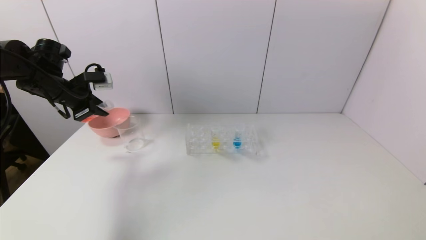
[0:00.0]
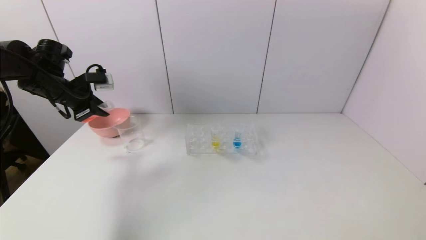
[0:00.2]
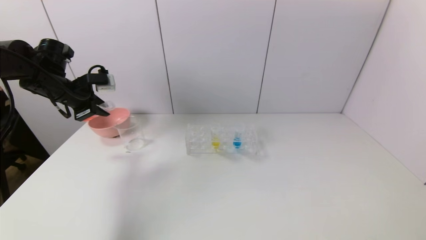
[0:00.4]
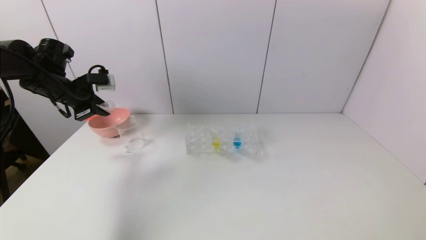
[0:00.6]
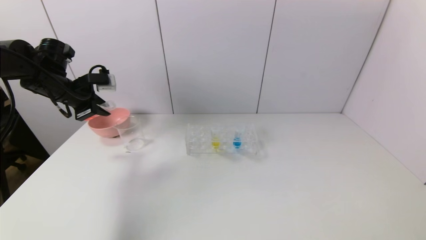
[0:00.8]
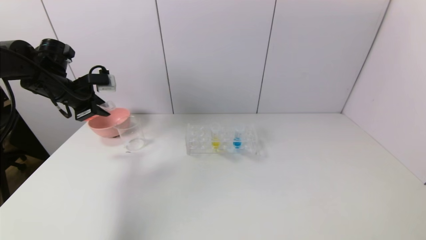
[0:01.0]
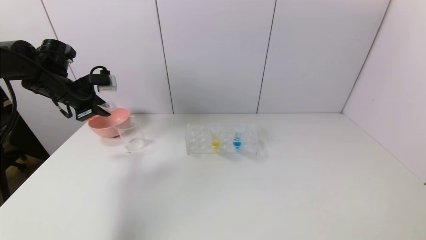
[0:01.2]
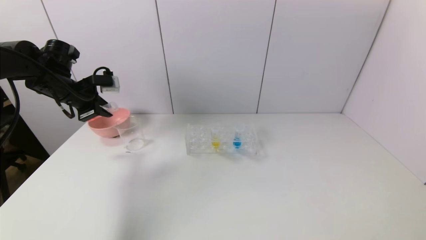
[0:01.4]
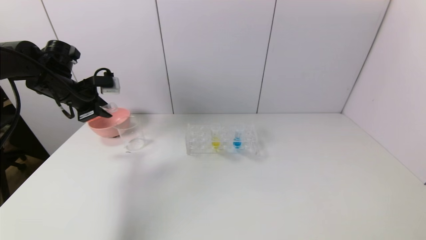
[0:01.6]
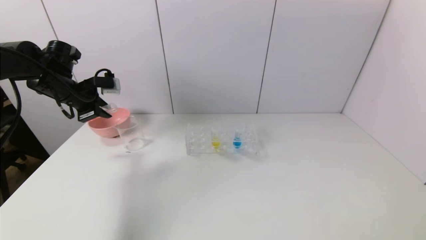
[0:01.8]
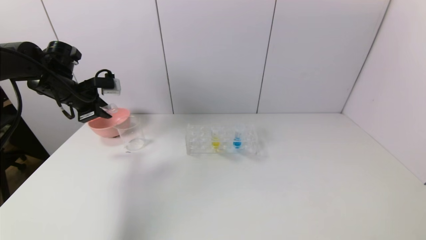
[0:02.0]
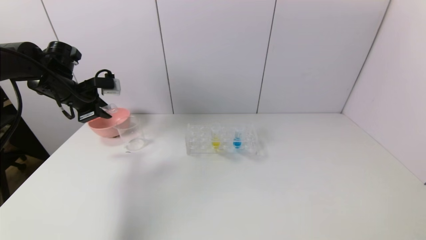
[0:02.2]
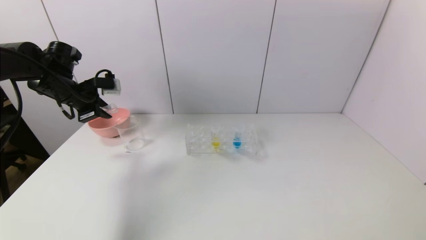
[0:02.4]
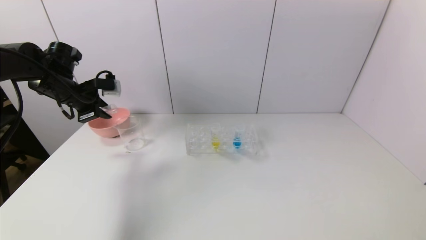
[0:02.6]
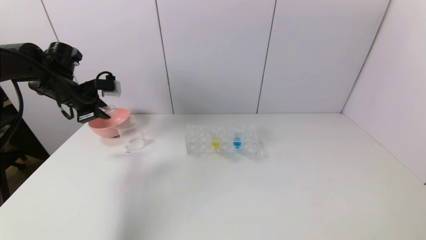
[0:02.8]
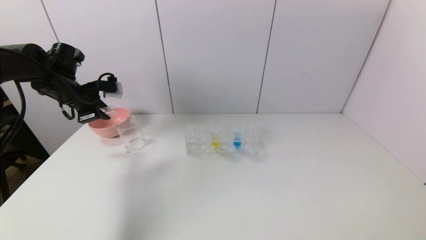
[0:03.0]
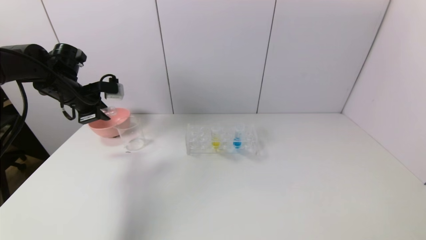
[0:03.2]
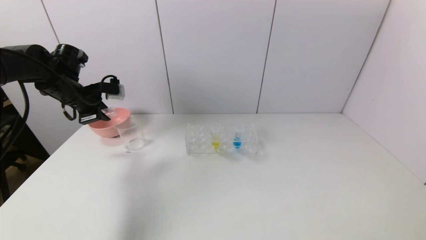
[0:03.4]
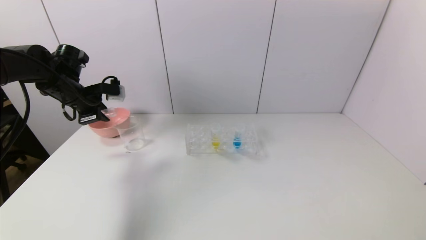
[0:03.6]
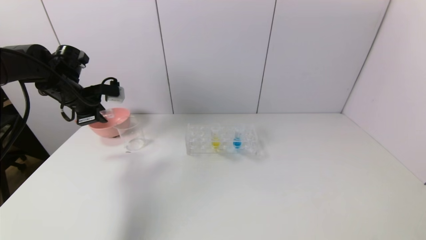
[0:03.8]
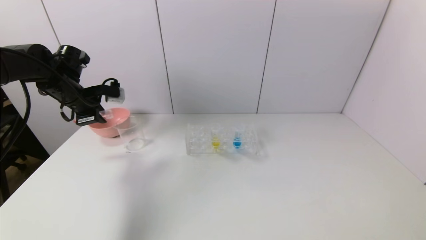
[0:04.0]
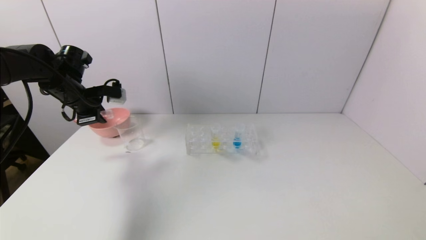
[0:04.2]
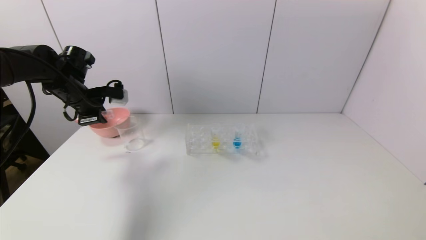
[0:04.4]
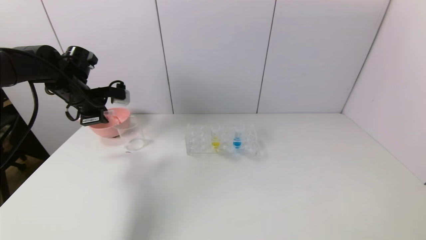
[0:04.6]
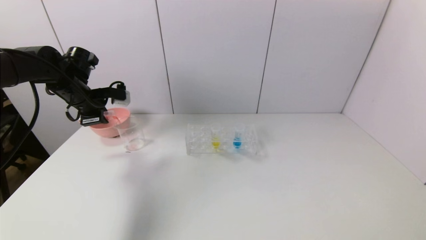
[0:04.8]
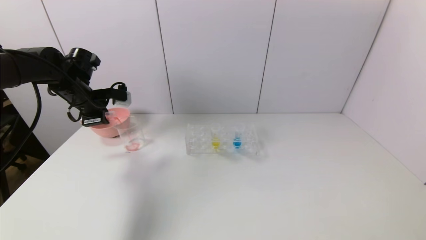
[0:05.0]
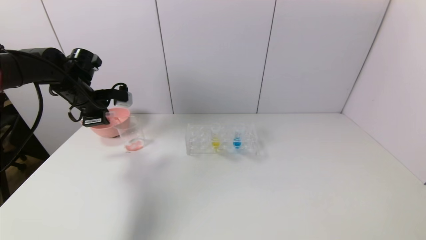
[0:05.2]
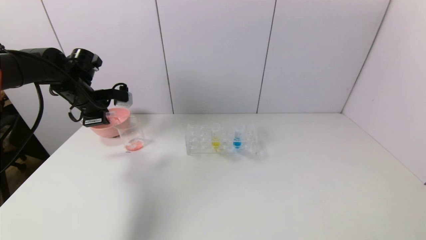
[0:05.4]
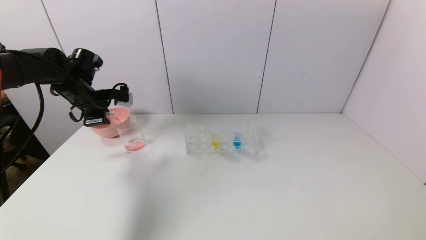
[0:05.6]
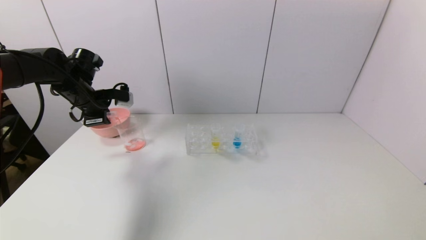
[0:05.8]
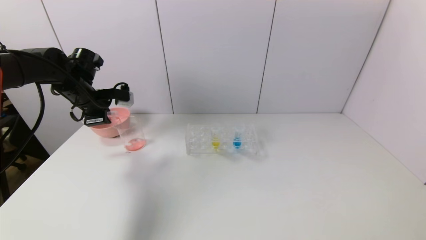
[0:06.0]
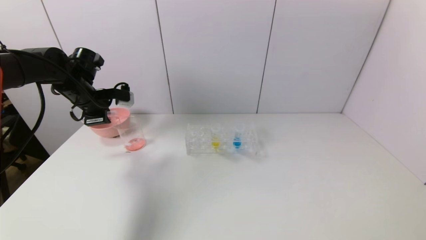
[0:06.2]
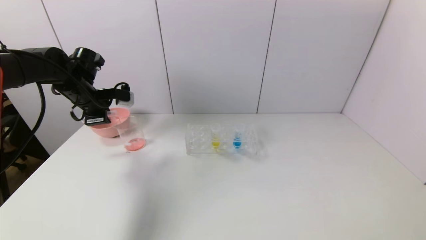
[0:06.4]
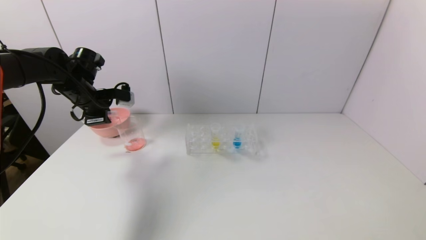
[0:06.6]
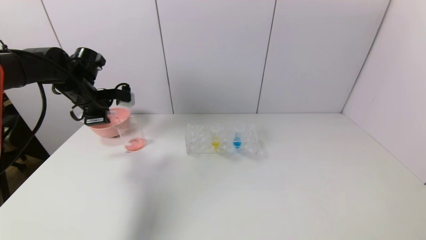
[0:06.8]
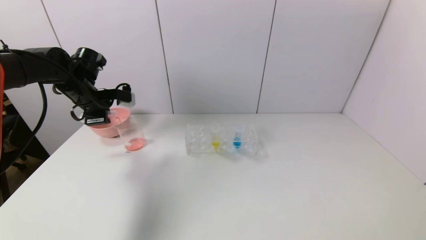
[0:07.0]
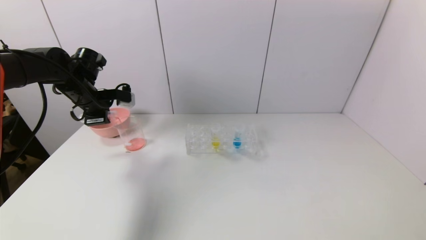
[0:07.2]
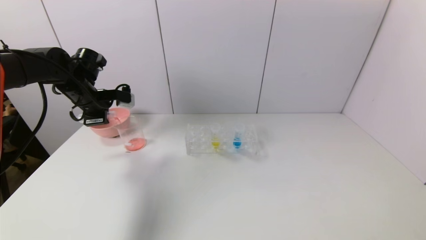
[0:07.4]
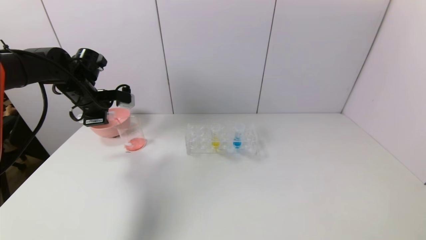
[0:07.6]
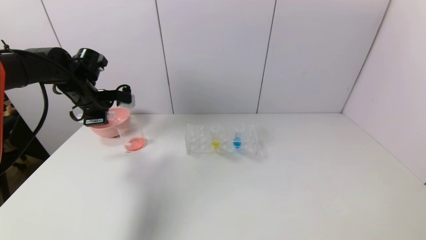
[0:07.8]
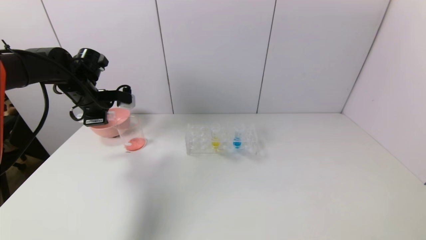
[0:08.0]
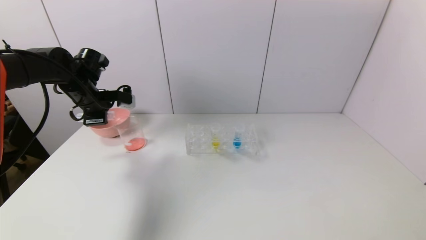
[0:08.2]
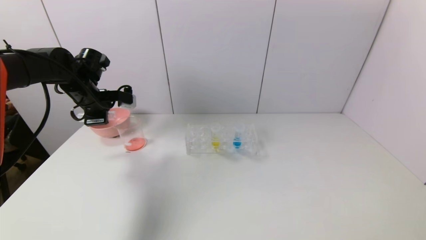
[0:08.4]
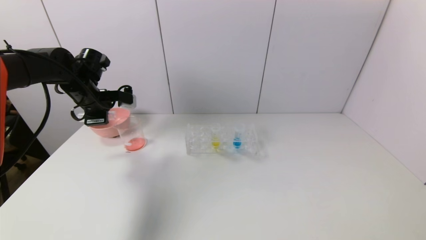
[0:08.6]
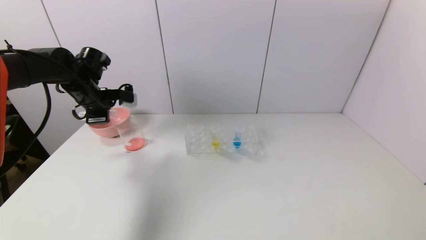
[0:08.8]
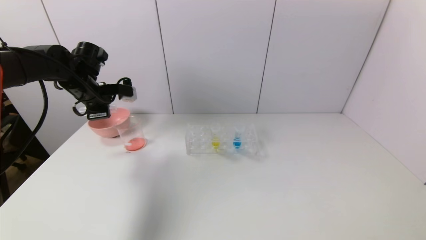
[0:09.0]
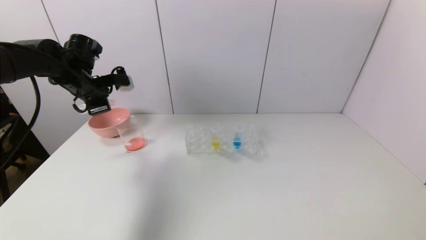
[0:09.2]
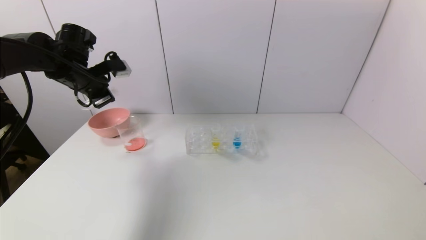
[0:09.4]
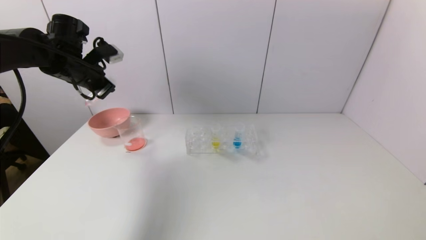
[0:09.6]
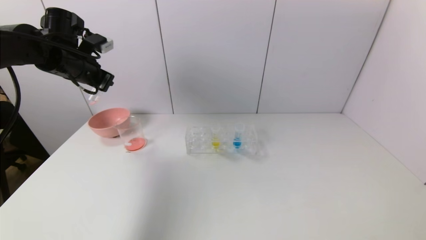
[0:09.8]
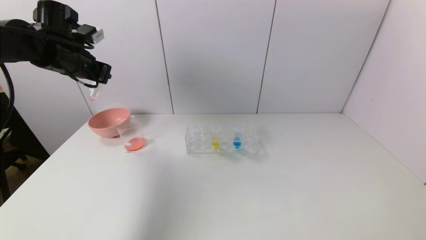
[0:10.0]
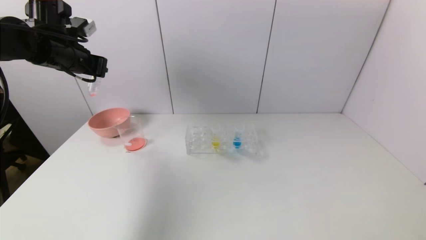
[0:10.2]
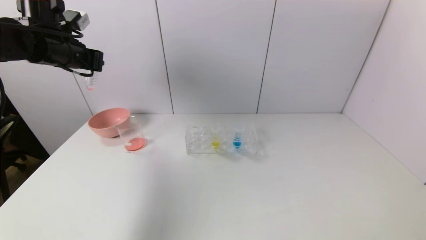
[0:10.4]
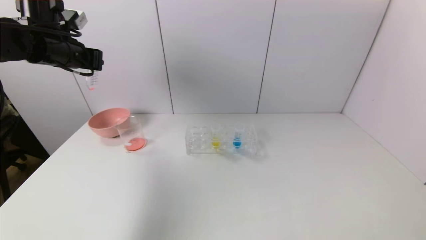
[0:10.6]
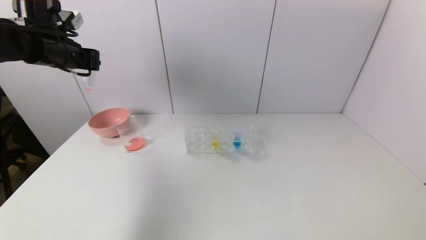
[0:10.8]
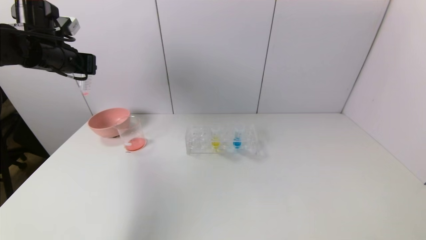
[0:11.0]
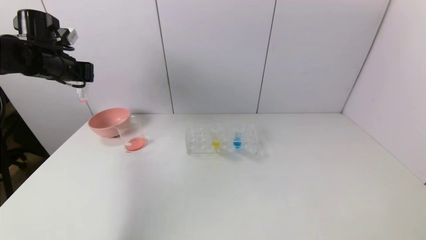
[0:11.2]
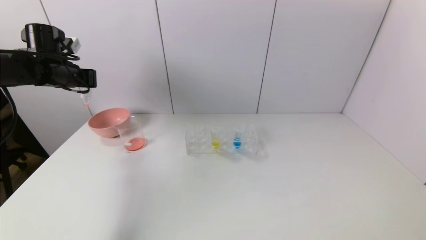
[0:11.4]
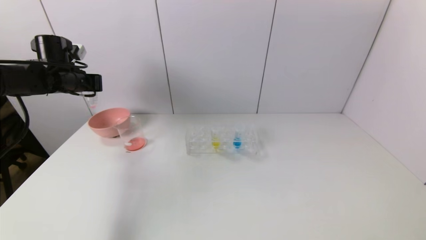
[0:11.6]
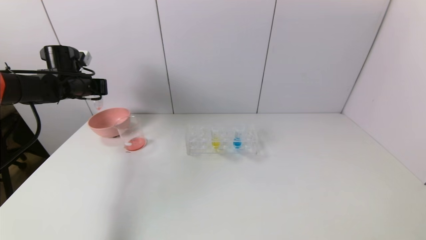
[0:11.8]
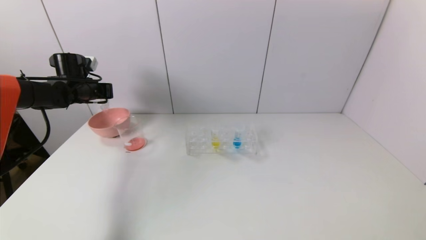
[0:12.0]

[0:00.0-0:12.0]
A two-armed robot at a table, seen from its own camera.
Task of the whole recording: pick up the test tube with red pigment and the test tube with blue pigment by grippers and pour them into the container.
Step, 0:00.0 to 0:09.6: Pour the red reagent into the graduated cylinder with the left gripper.
0:00.0 to 0:03.0: The grippers move only a little.
0:03.0 to 0:06.0: The grippers stay close to where they were, moving slightly.
0:06.0 to 0:07.6: Neither gripper changes place.
0:07.6 to 0:09.0: There are only small adjustments of the grippers.
0:09.0 to 0:10.4: The left gripper travels upward by roughly 10 cm.
0:10.4 to 0:12.0: The left gripper travels downward and forward by roughly 15 cm.

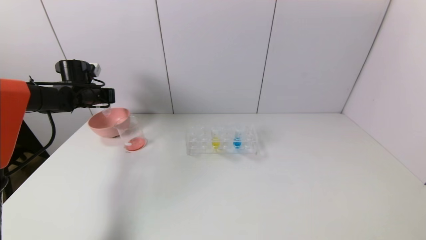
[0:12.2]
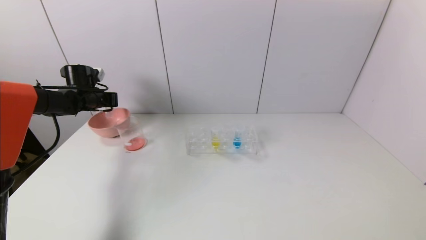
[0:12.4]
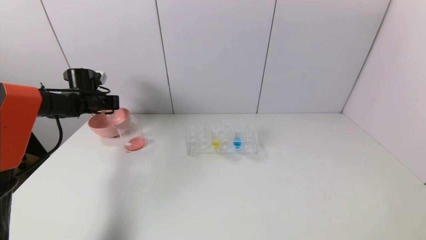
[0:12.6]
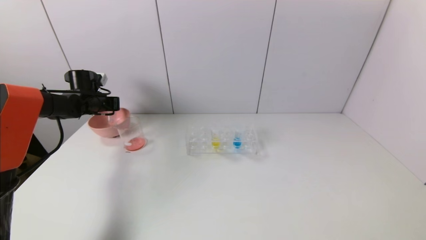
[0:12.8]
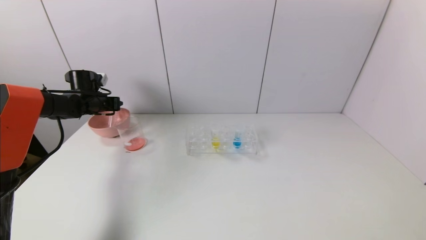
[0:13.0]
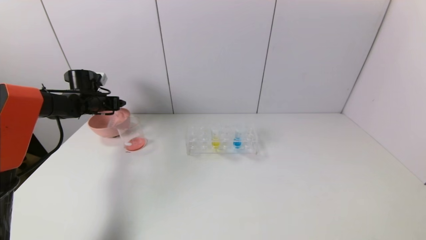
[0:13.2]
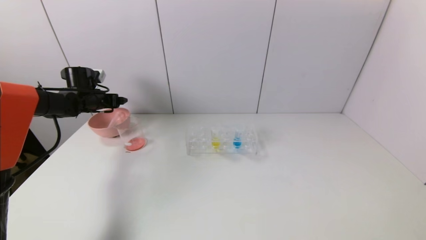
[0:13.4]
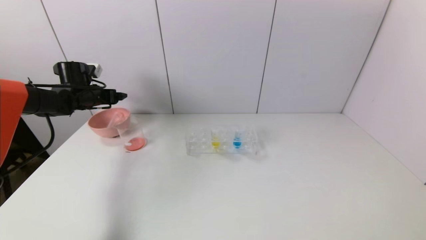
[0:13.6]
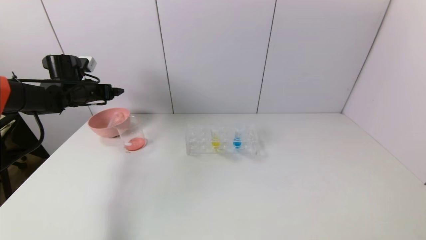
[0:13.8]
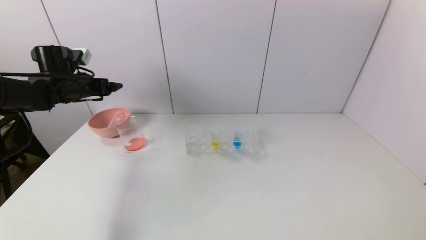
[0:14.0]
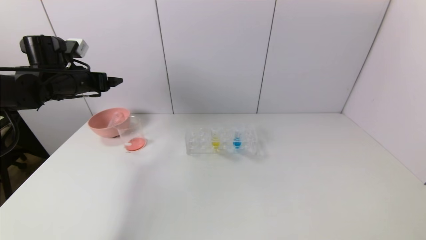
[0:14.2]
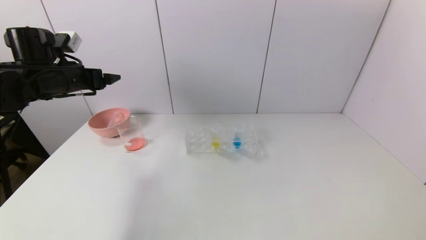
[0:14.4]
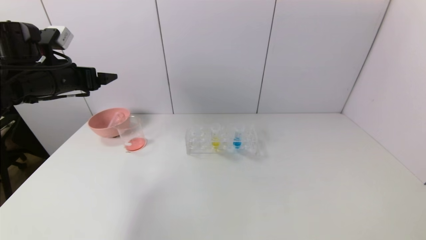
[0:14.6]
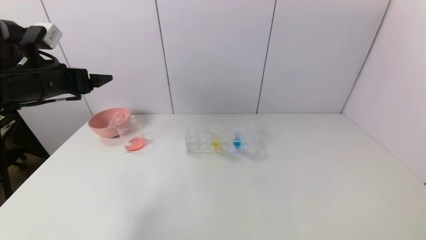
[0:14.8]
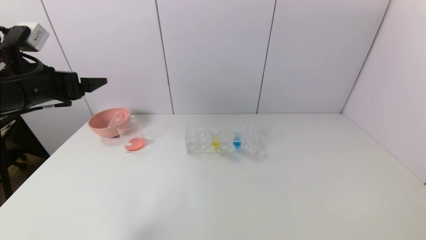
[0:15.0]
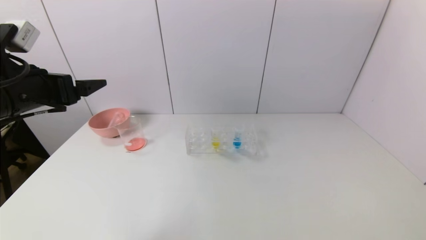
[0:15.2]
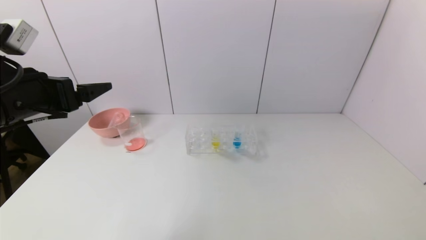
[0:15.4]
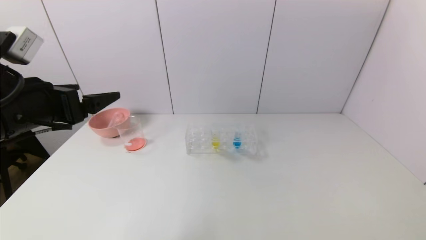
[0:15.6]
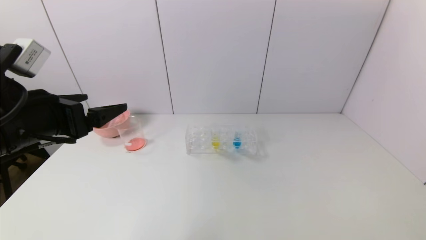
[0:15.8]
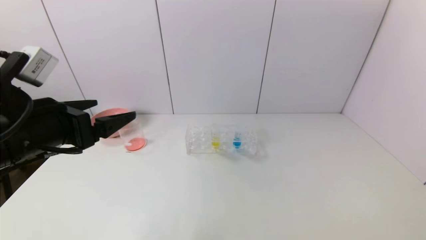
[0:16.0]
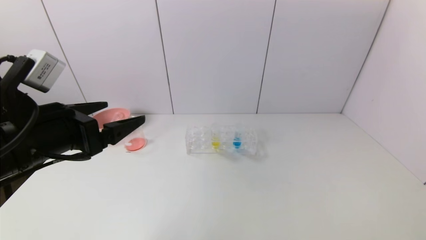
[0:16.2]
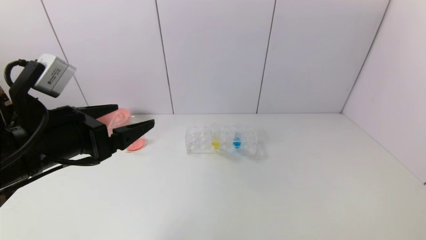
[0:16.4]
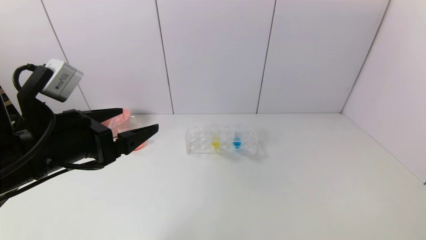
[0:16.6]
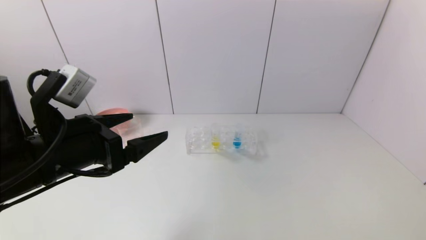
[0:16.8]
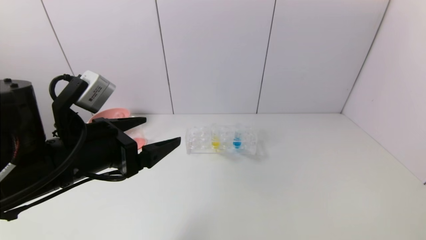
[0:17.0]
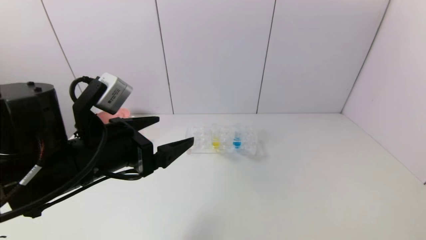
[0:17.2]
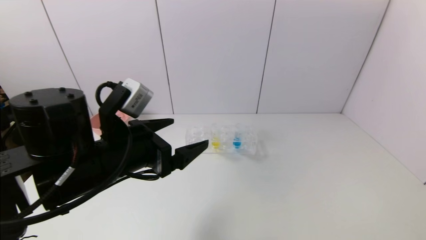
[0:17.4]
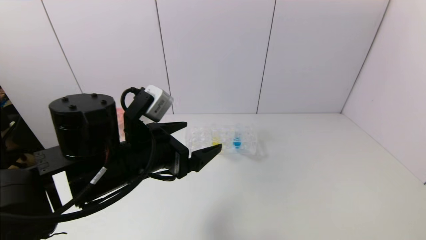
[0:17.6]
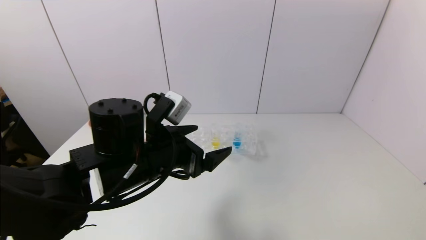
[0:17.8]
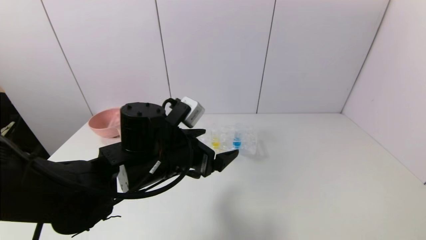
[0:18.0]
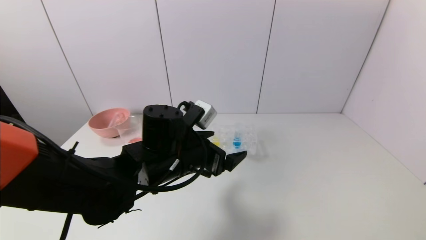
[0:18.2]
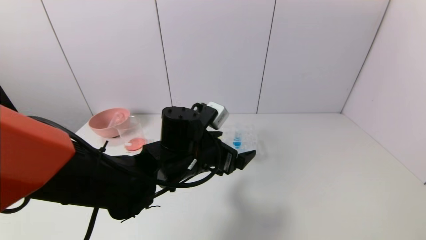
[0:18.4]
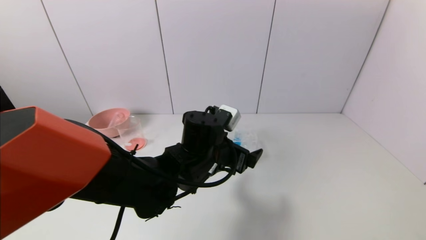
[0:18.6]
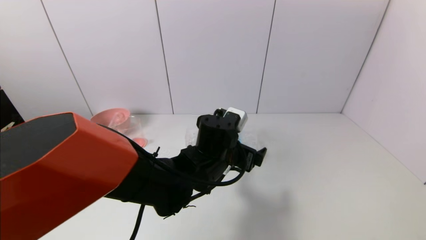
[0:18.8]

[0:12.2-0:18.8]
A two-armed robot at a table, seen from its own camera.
Task of the whole recording: pick up the test tube with red pigment and the test tube with blue pigment by grippers and pour them into the container.
0:12.2 to 0:13.8: The left gripper opens its fingers.
0:13.8 to 0:15.4: The left gripper travels backward by approximately 25 cm.
0:15.4 to 0:17.2: The left gripper travels to the right and downward by approximately 10 cm.
0:17.2 to 0:18.8: The left gripper is displaced to the right, forward and downward by roughly 20 cm.
